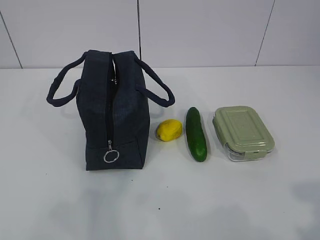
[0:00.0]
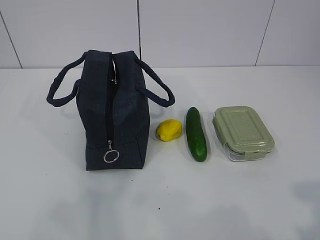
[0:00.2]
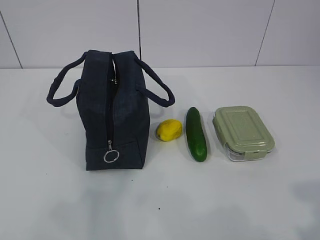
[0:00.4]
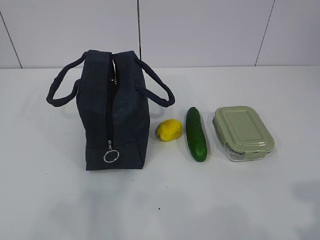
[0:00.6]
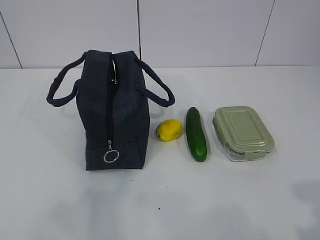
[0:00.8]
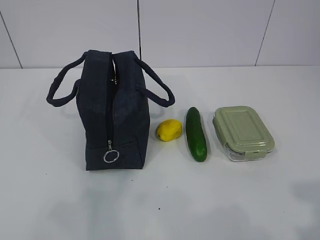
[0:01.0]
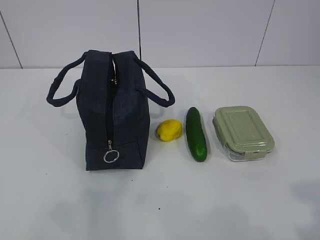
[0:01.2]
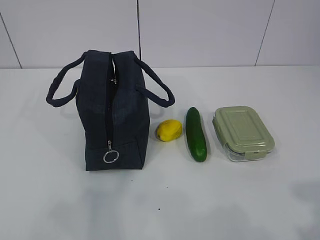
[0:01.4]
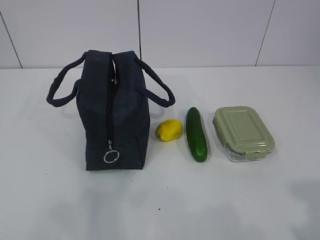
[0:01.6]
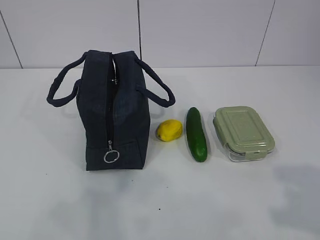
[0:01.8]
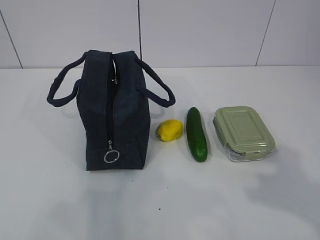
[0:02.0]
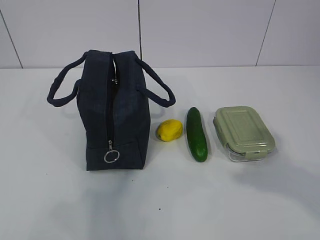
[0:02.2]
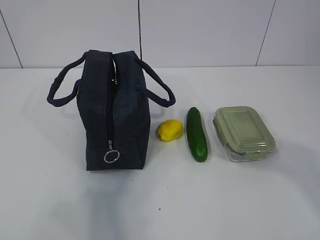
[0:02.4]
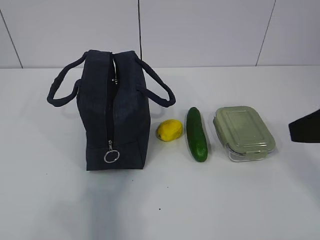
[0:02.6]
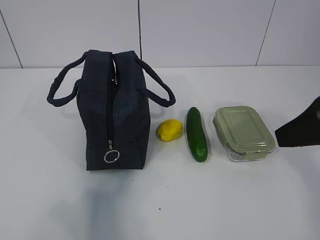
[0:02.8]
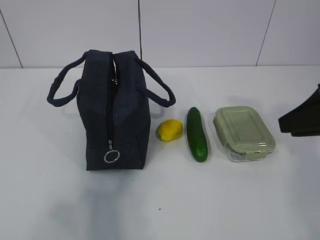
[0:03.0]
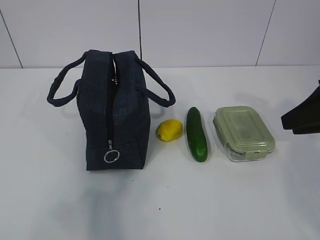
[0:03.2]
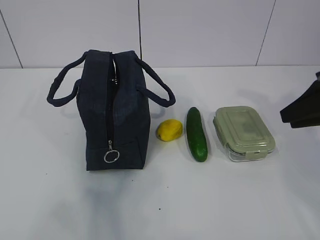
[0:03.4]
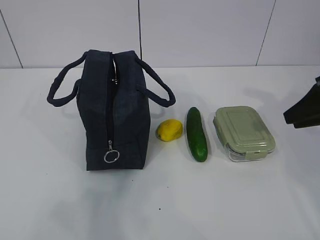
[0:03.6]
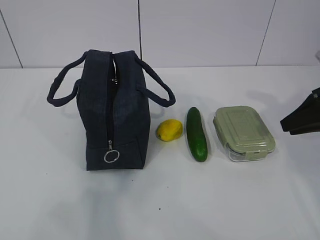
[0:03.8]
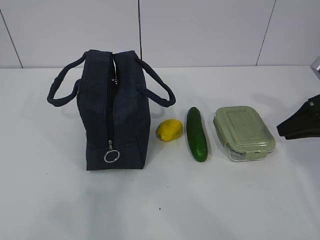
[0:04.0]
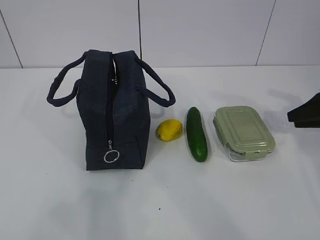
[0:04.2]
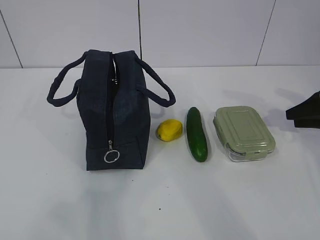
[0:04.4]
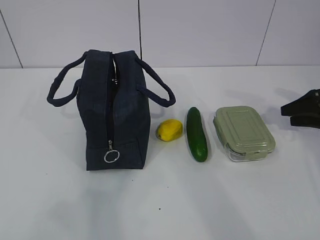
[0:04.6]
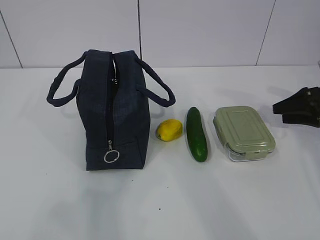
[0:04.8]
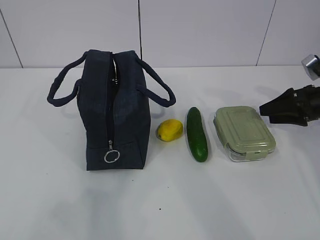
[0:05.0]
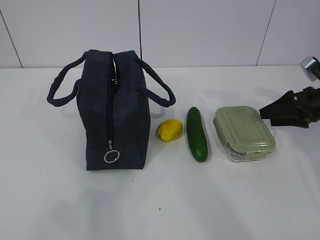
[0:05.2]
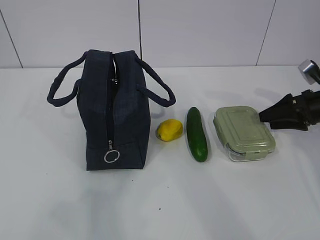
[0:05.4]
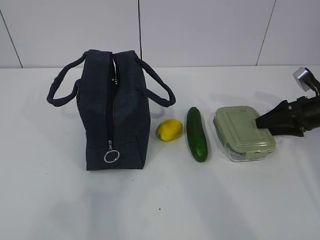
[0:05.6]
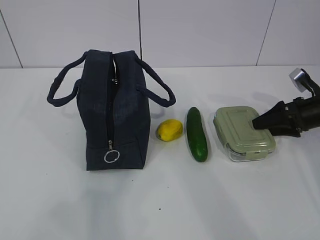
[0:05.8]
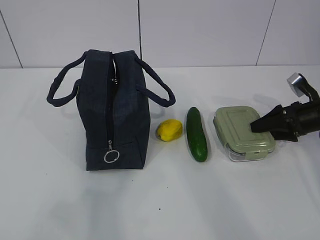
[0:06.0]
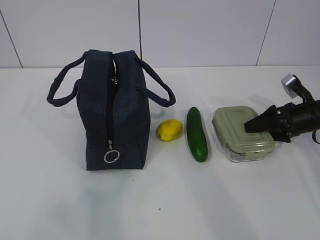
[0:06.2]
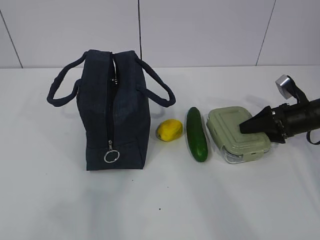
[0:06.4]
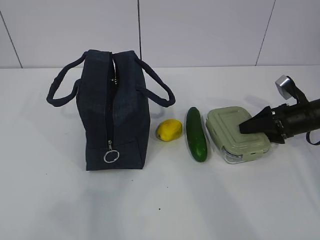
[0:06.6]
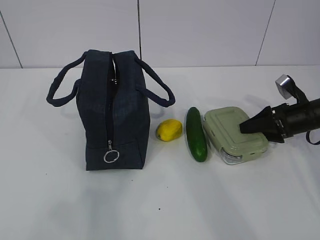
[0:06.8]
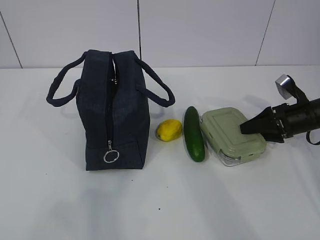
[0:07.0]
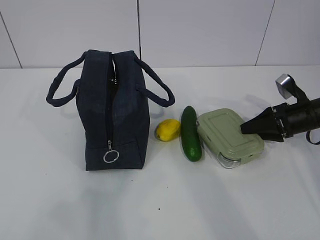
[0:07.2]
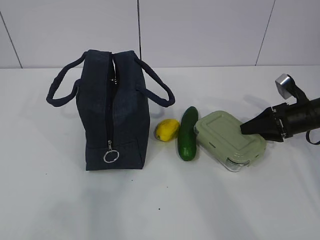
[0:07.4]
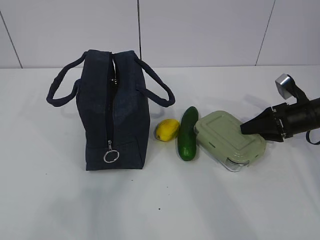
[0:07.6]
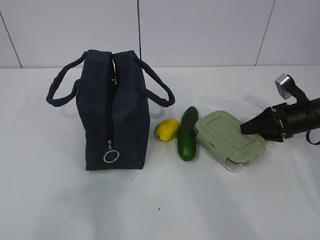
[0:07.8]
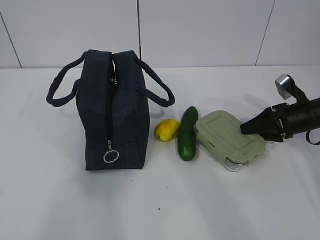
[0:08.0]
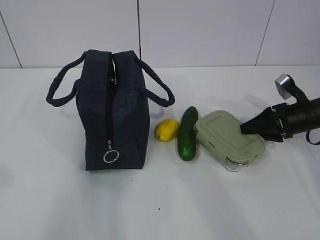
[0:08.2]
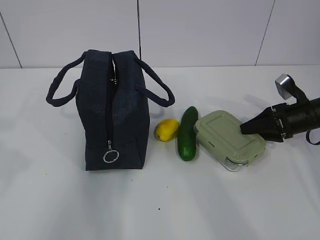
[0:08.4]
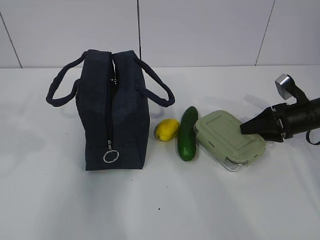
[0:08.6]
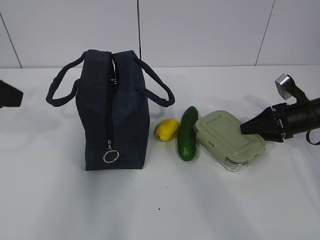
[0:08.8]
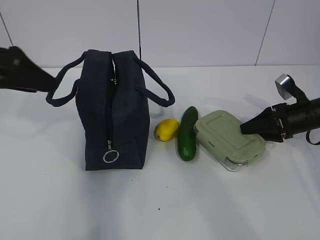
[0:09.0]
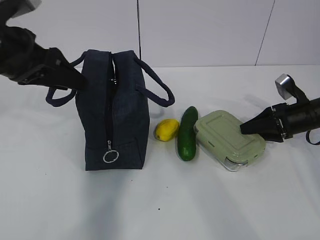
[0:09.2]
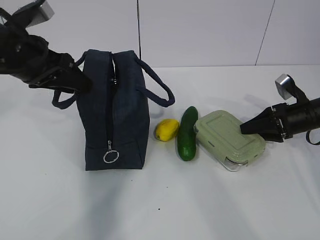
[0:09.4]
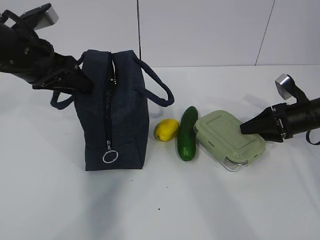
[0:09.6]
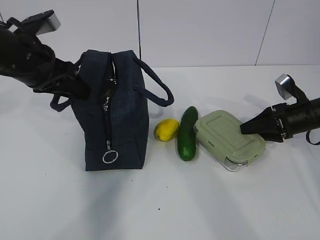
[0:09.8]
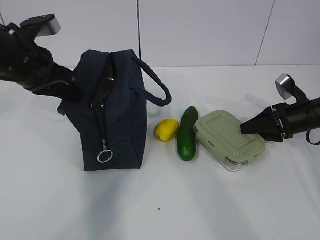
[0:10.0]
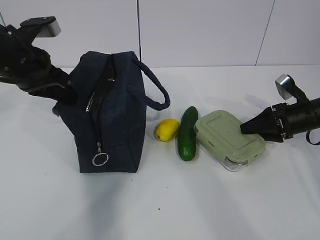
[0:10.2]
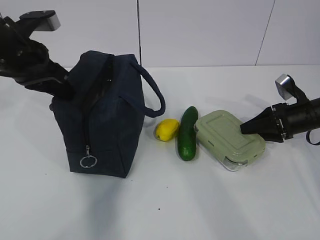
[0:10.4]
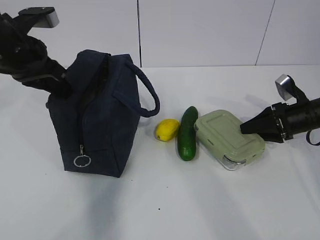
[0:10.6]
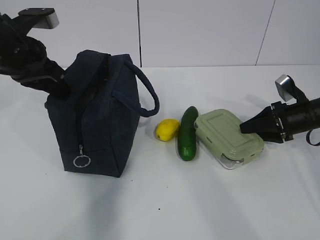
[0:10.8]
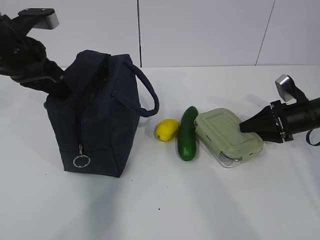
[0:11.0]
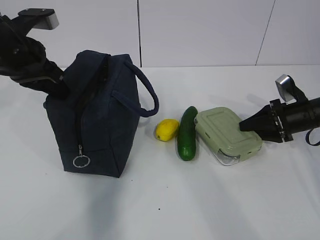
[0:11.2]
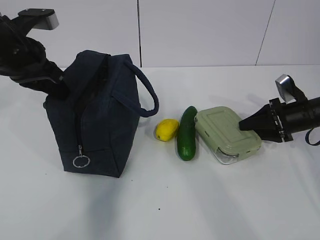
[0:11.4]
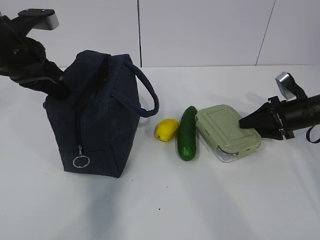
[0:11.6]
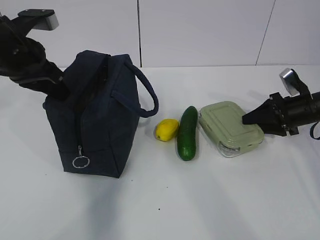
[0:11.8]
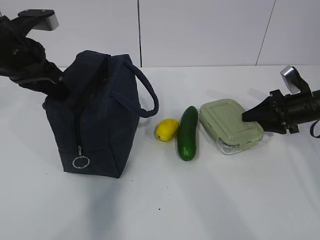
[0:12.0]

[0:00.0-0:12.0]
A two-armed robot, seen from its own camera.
Step, 0:00.0 to 0:08.6: Grab the lunch box with your right hand.
0:01.6 to 0:03.0: The right gripper moves forward, some 25 cm.
0:03.0 to 0:04.4: The right gripper travels to the right, forward and downward by about 25 cm.
0:04.4 to 0:06.0: The right gripper heads to the left, covering roughly 5 cm.
0:06.0 to 0:07.6: The grippers stay close to where they were, moving slightly.
0:07.6 to 0:09.0: The left gripper is displaced forward by roughly 25 cm, and opens up.
0:09.0 to 0:10.4: The left gripper heads forward, covering roughly 10 cm, and closes up.
0:10.4 to 0:12.0: The grippers stay close to where they were, moving slightly.

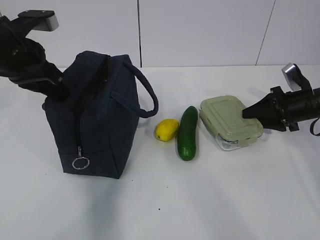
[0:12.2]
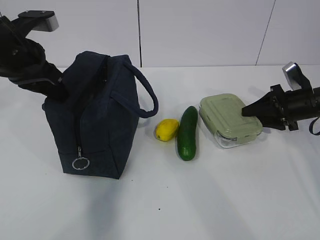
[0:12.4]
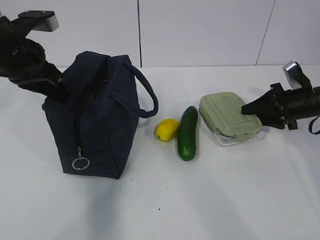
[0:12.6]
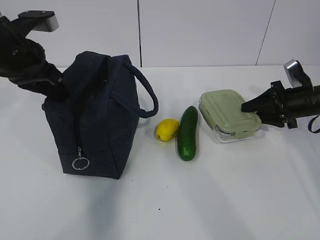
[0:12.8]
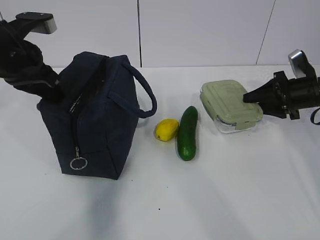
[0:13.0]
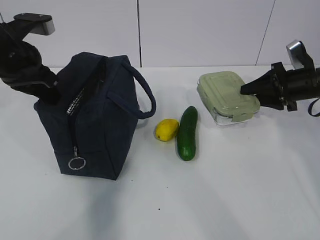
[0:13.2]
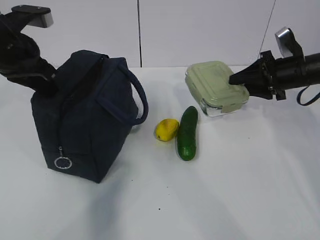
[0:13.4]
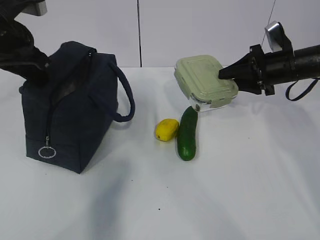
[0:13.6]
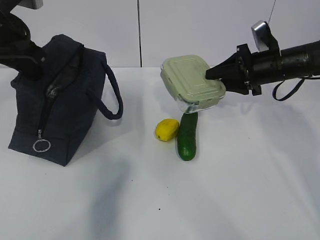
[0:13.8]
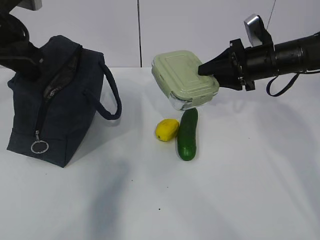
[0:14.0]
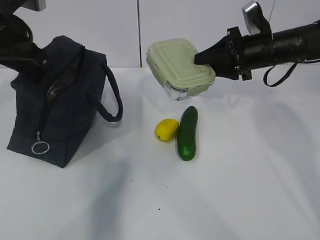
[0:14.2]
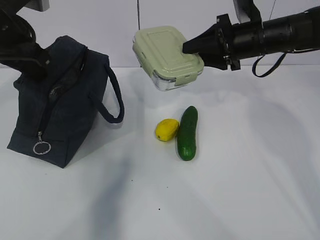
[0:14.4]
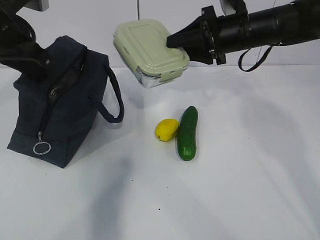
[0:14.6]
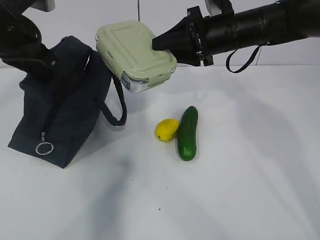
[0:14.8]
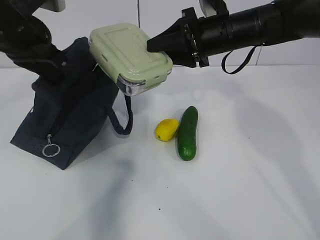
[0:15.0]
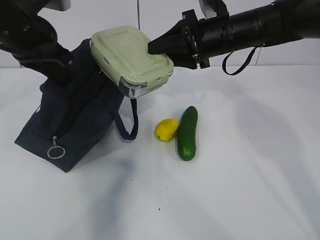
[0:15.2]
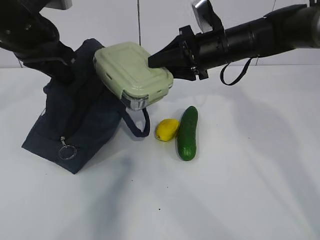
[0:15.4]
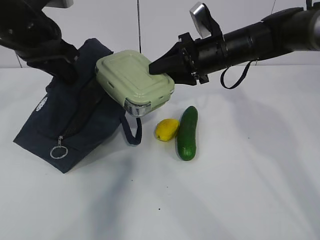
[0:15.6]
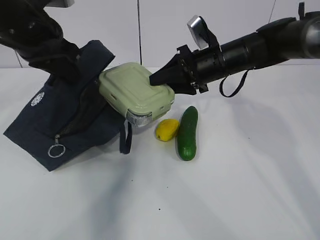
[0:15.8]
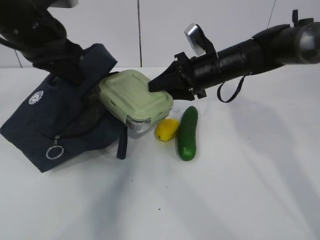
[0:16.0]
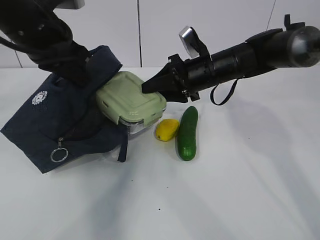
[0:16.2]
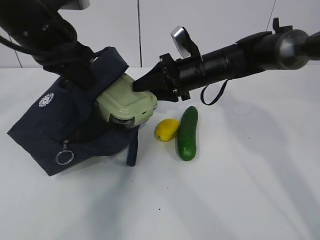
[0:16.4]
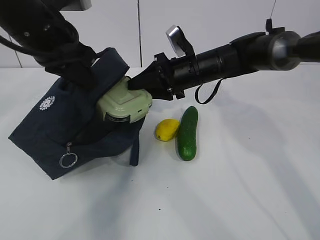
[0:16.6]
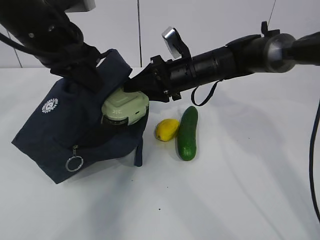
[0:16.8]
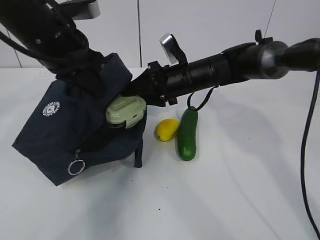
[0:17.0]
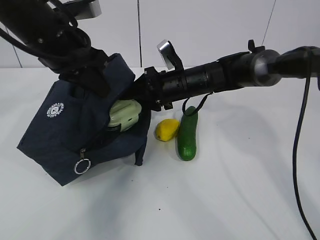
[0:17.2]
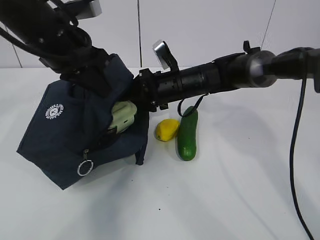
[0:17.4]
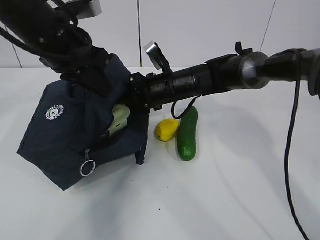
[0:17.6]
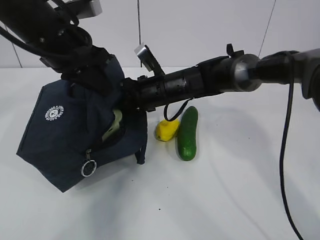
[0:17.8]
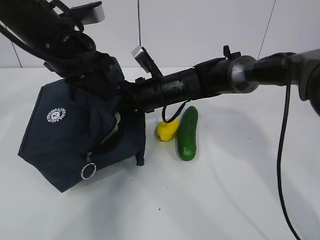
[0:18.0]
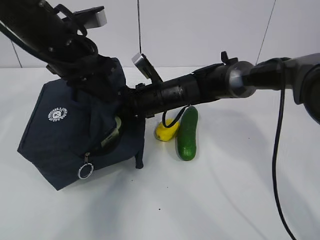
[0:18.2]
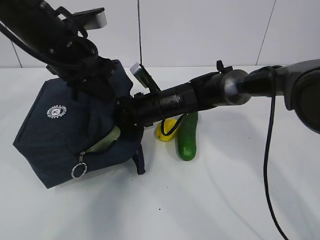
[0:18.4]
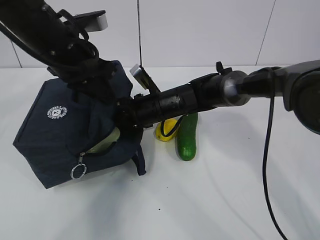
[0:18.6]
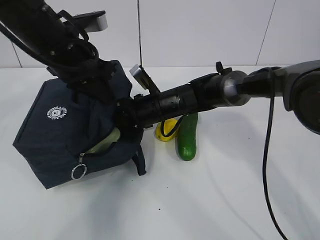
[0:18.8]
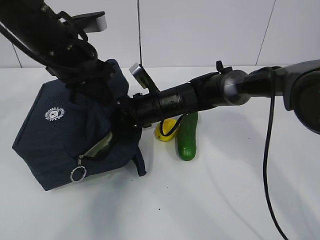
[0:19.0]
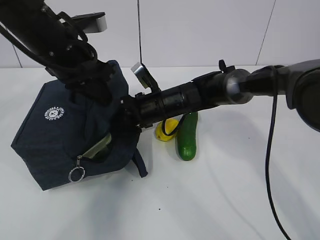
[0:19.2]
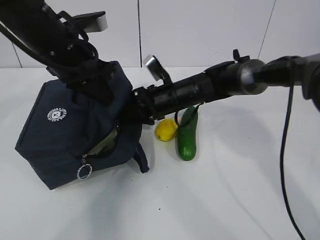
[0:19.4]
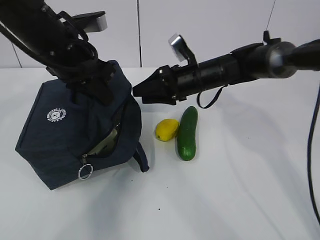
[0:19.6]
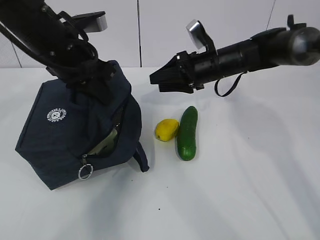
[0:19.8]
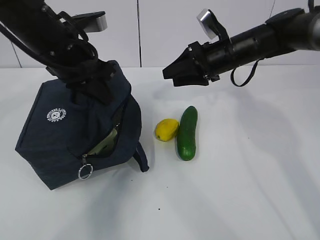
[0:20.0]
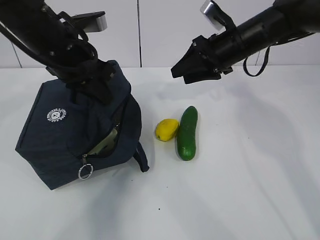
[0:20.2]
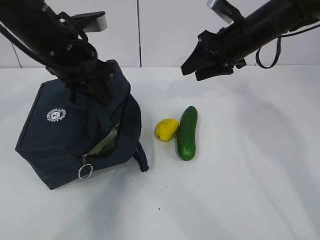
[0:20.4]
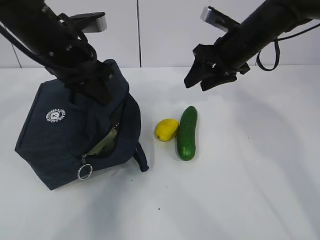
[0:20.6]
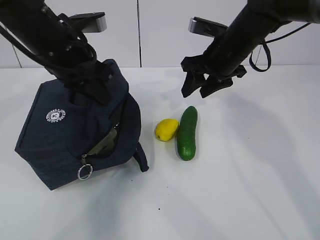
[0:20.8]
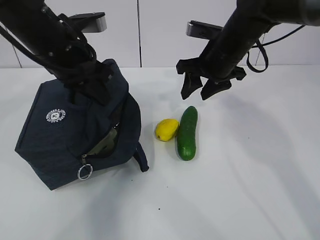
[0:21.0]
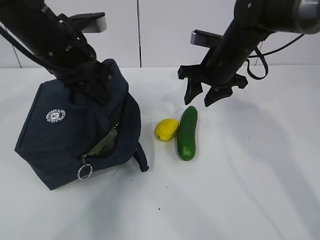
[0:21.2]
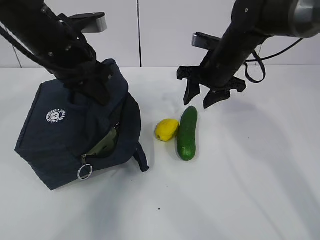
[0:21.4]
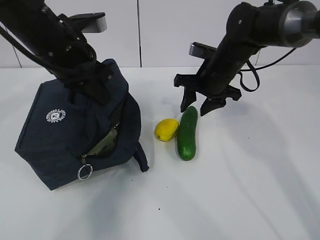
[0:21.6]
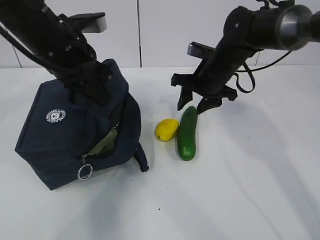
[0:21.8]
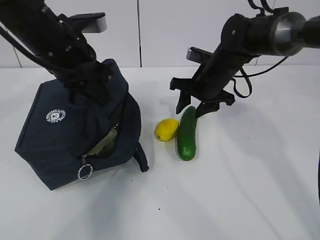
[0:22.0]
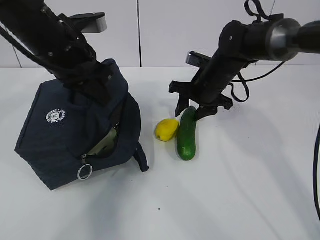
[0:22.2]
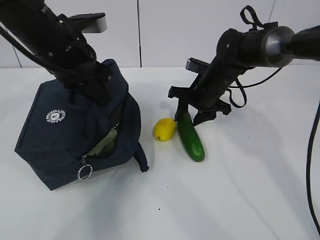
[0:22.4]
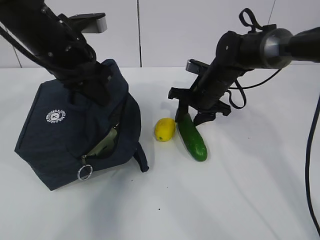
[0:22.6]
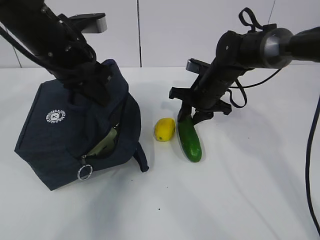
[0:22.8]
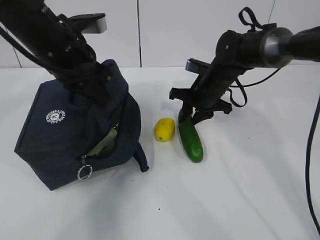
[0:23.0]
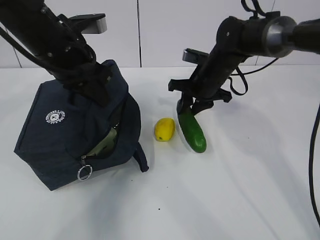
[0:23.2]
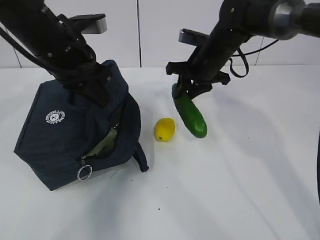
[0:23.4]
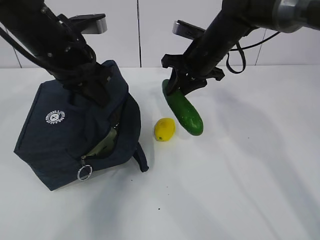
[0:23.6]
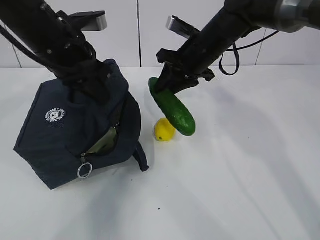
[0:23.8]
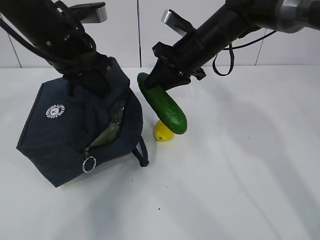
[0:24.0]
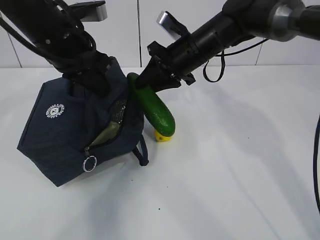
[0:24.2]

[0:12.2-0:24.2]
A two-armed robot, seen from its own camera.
Step, 0:12.8 to 0:16.0: Place it into the bag with your right hand.
Step, 0:16.2 to 0:19.0: Grab the cucumber with your right hand.
Step, 0:19.2 to 0:22.0: Place it into the bag with your right hand.
0:12.2 to 0:13.8: The right gripper is displaced to the left and upward by approximately 10 cm.
0:13.8 to 0:15.2: The right gripper heads to the left and upward, covering roughly 15 cm.
0:15.2 to 0:16.6: The right gripper shifts about 10 cm downward.
0:16.6 to 0:18.2: The right gripper is displaced to the left by approximately 5 cm.
0:18.2 to 0:19.8: The right gripper heads to the right, covering some 10 cm.
0:21.2 to 0:22.6: The right gripper travels downward by roughly 10 cm.
0:22.6 to 0:24.2: The right gripper heads upward, covering roughly 10 cm.
